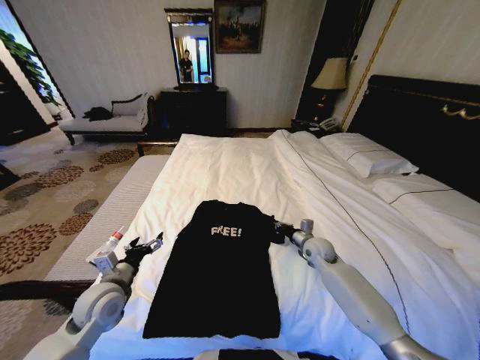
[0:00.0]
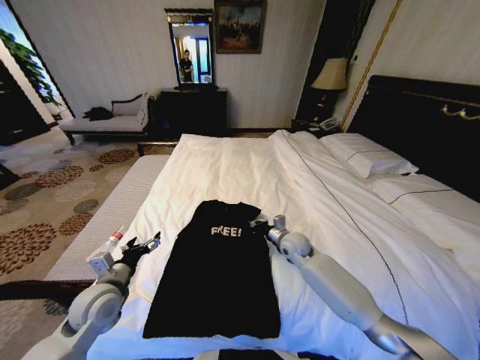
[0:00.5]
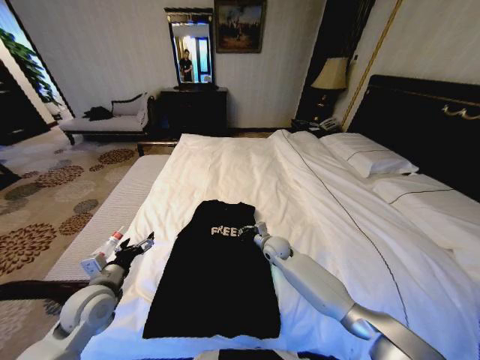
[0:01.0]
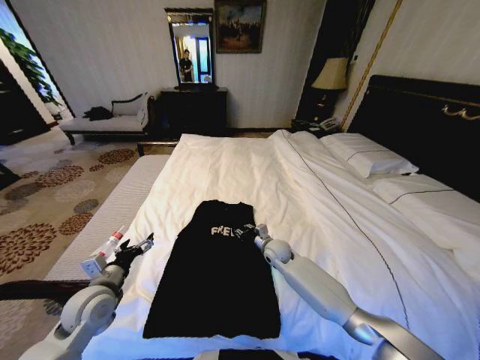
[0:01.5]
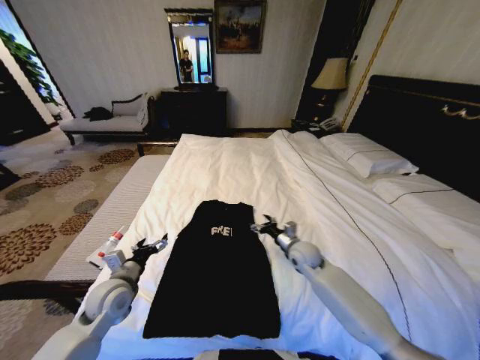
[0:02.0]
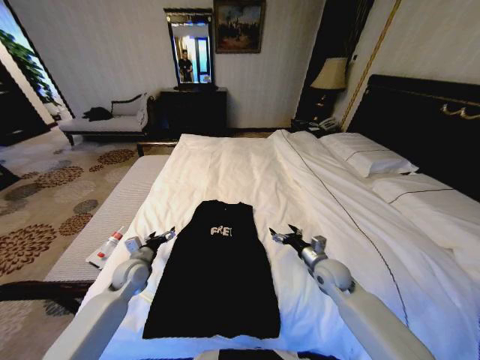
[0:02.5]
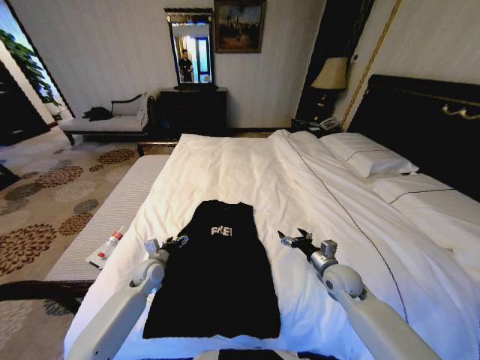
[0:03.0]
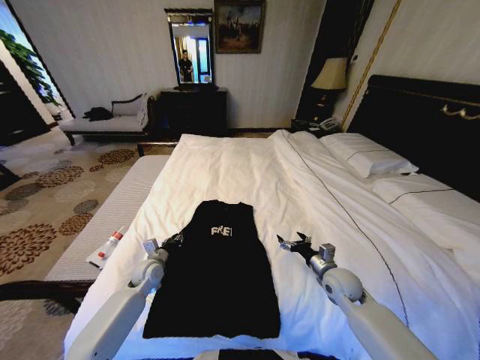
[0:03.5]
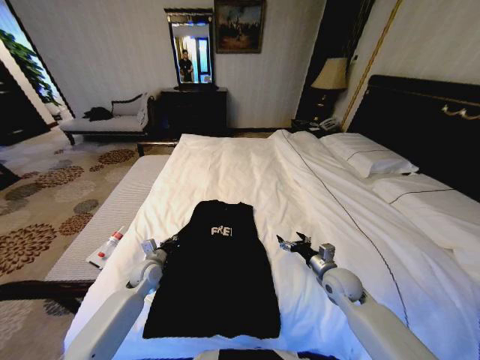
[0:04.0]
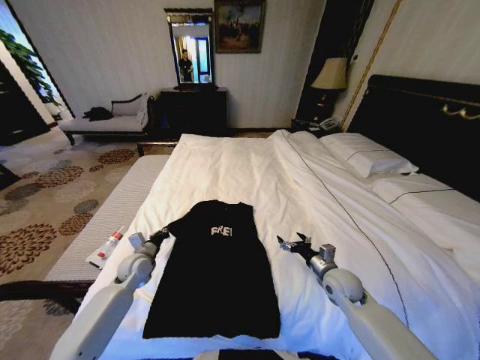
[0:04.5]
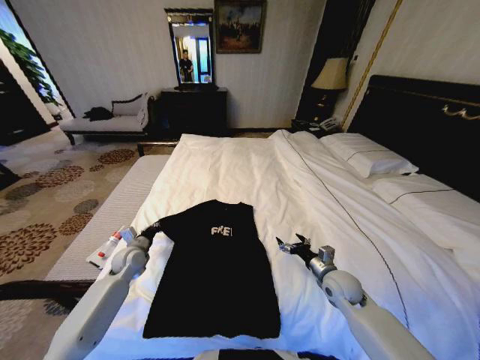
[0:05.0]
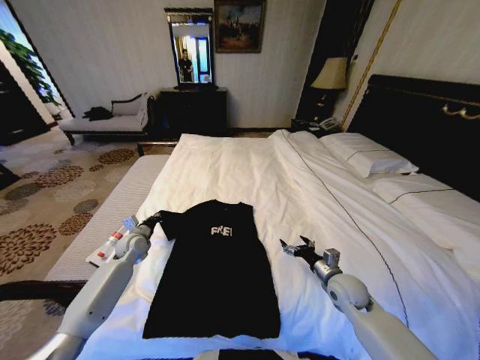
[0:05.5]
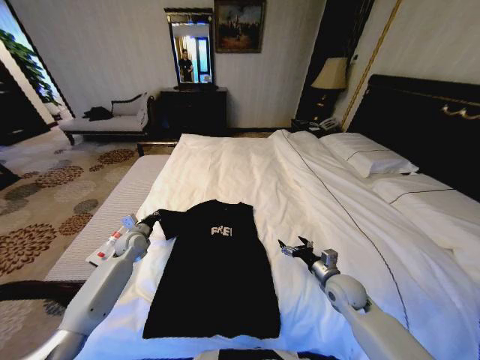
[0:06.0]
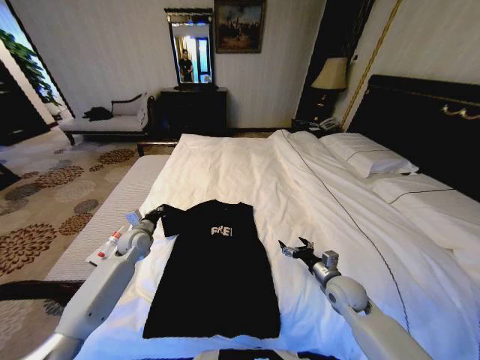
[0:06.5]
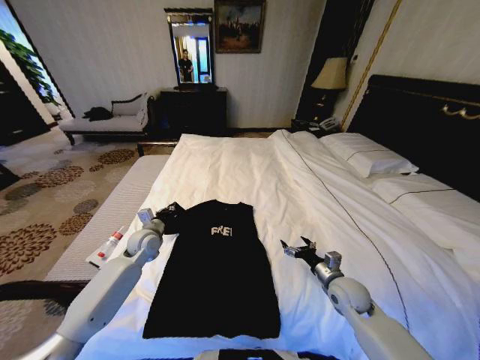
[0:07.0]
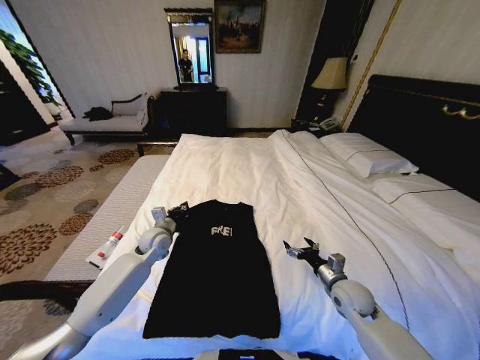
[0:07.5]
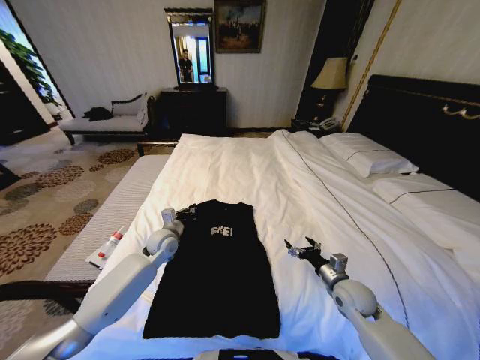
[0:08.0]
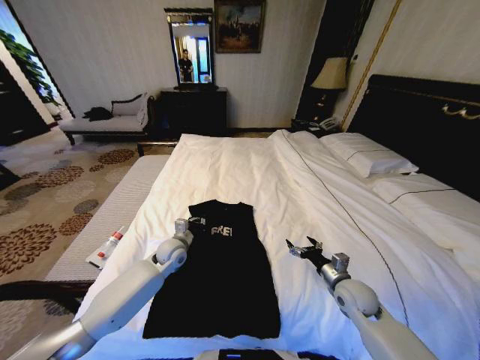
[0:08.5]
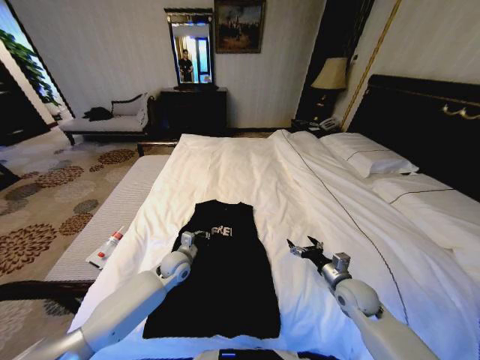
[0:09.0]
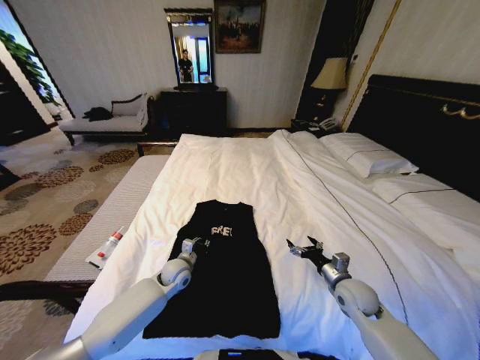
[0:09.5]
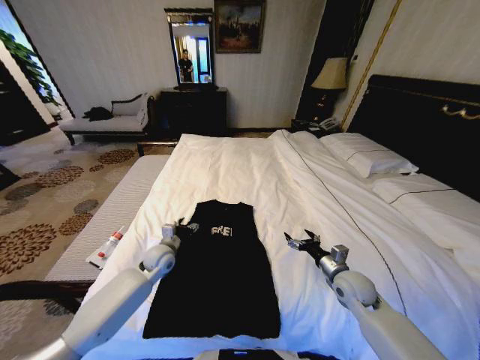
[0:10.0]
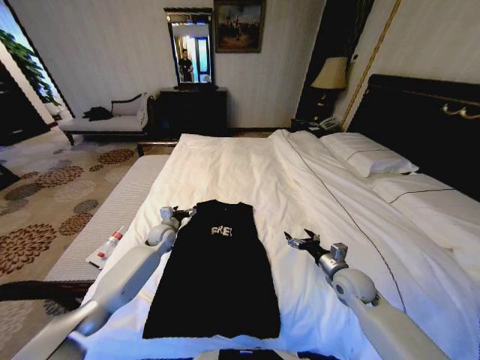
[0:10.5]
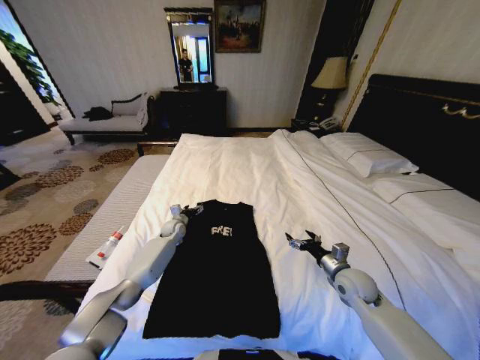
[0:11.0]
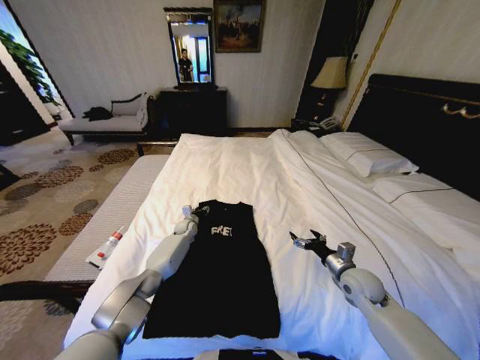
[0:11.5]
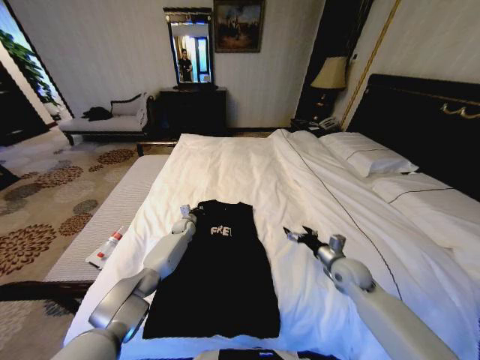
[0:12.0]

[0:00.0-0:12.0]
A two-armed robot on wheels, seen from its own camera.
Task of the whole recording: Fold the clothes on the bed.
0:00.0 to 0:02.0: The right gripper shifts some 5 cm to the left, and opens up.
0:02.0 to 0:04.0: The left gripper travels forward and downward by about 15 cm, and closes up. Meanwhile the right gripper goes approximately 10 cm backward and to the right.
0:04.0 to 0:06.0: The left gripper travels forward and to the left by about 10 cm.
0:06.0 to 0:08.0: The left gripper shifts about 15 cm to the right.
0:08.0 to 0:10.0: The left gripper opens its fingers.
0:10.0 to 0:12.0: The left gripper shifts about 20 cm forward and downward, and closes up.

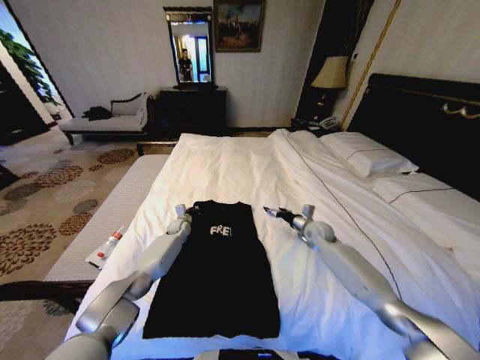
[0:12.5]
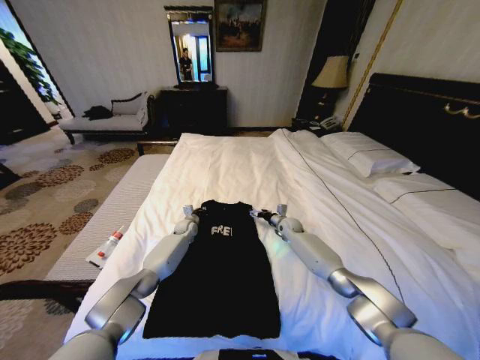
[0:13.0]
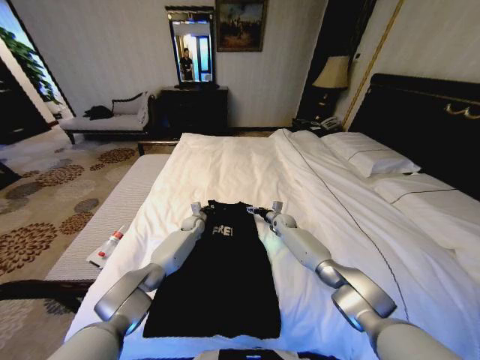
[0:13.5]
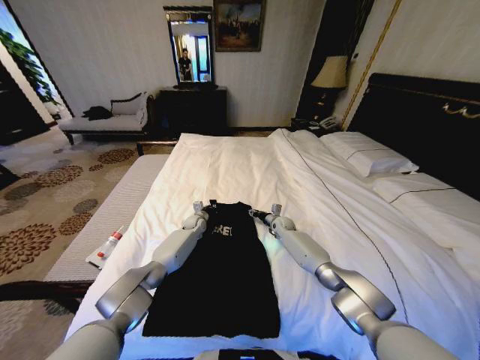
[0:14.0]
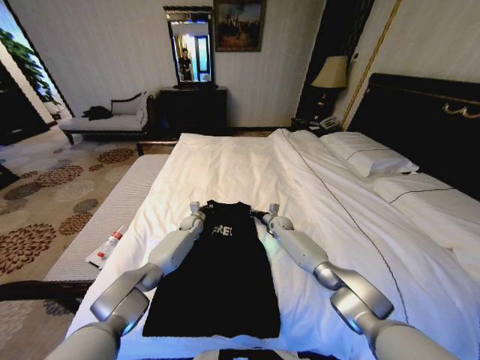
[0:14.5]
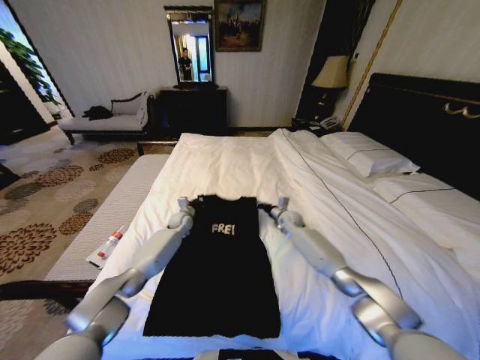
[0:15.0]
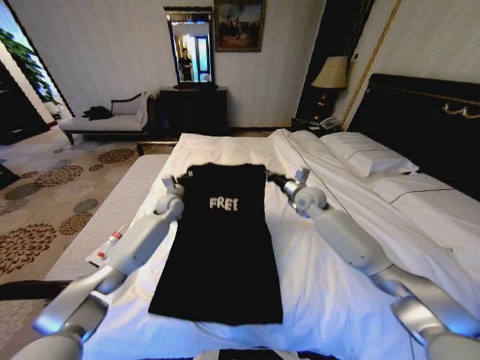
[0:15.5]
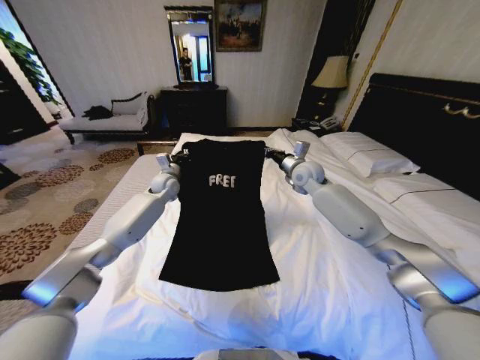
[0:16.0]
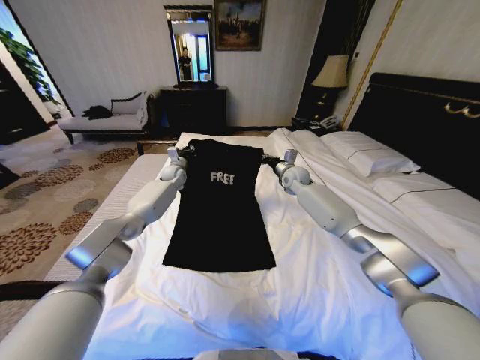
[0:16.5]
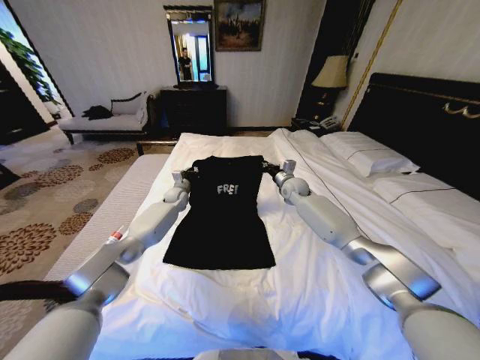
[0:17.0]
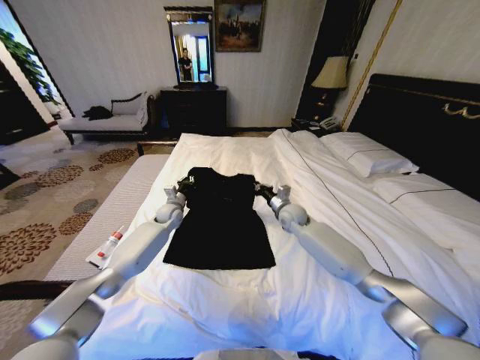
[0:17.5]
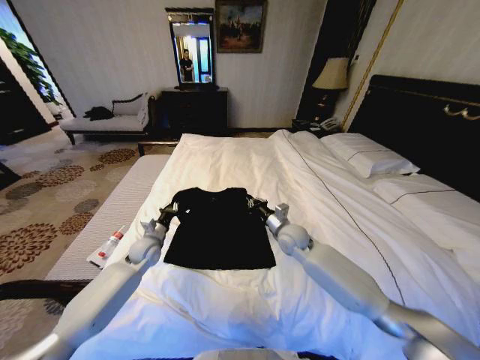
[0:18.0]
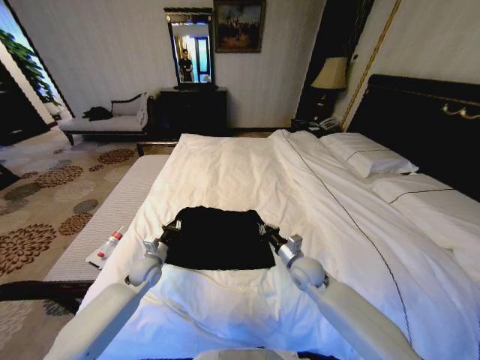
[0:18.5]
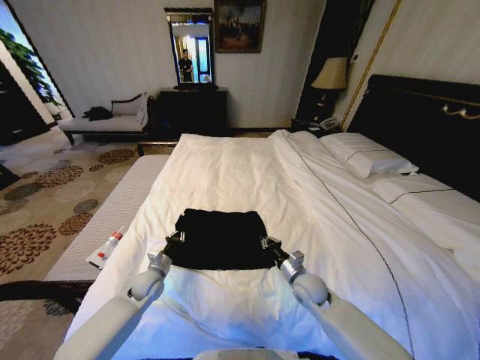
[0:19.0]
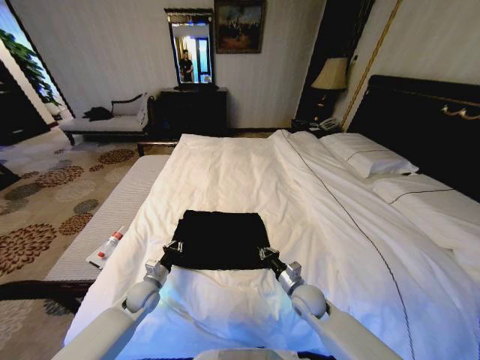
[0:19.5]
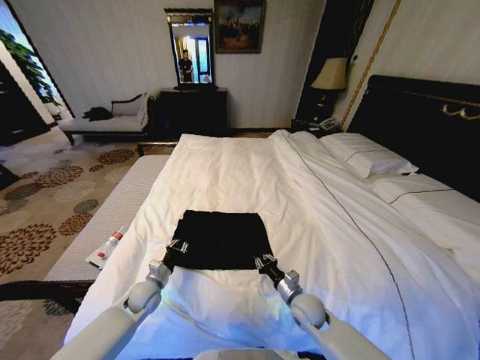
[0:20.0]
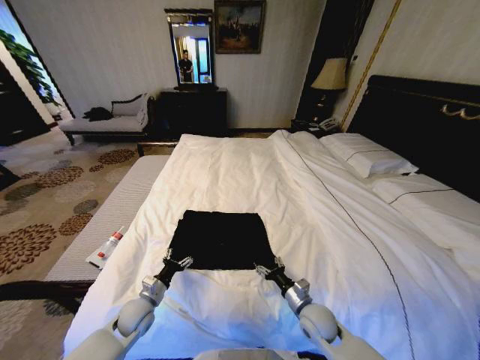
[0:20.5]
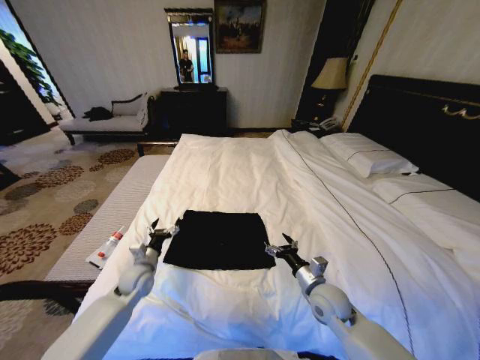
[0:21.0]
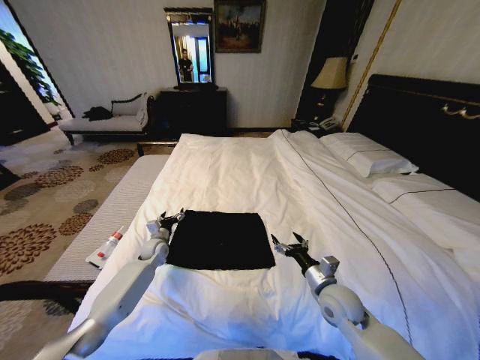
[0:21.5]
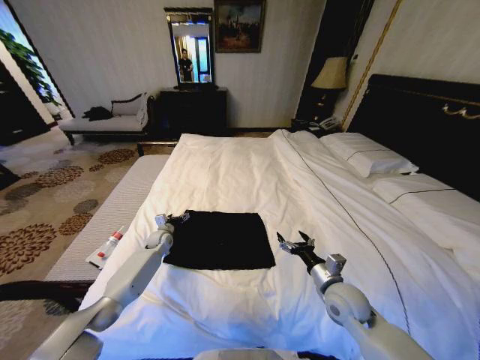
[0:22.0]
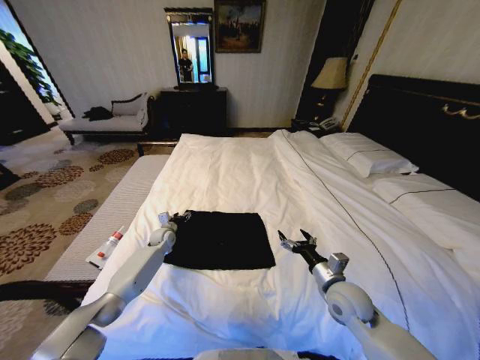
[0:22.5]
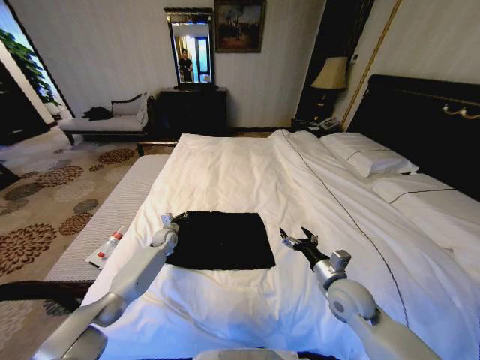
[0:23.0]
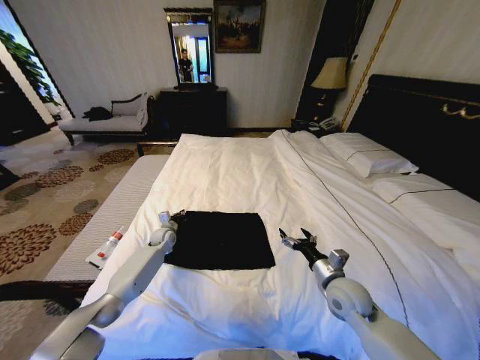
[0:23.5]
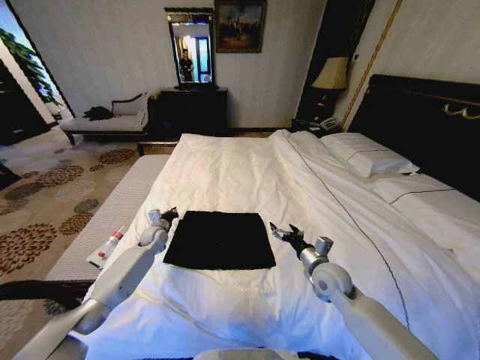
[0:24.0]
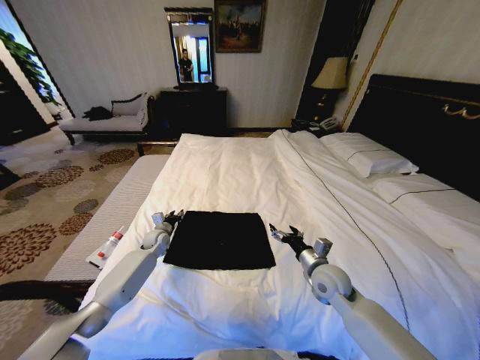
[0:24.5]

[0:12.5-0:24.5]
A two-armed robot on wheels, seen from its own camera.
Task of the whole recording: Fold the clothes on the bed.
0:12.5 to 0:14.5: The right gripper heads forward, to the left and downward, covering approximately 15 cm, and closes its fingers; the left gripper heads to the right, covering roughly 5 cm.
0:14.5 to 0:16.5: The right gripper moves upward, roughly 20 cm. Meanwhile the left gripper goes approximately 25 cm upward and forward.
0:16.5 to 0:18.5: The grippers both shift backward and downward by about 35 cm.
0:18.5 to 0:20.5: The left gripper travels backward by roughly 10 cm, and opens up. The right gripper is displaced backward and downward by about 15 cm, and opens.
0:20.5 to 0:22.5: The right gripper goes roughly 10 cm upward. The left gripper heads forward, covering roughly 25 cm.
0:22.5 to 0:24.5: The right gripper moves forward, some 5 cm. The left gripper closes its fingers.

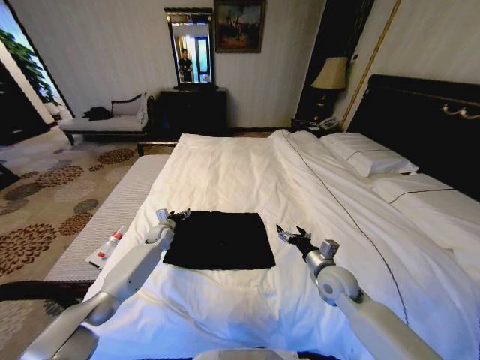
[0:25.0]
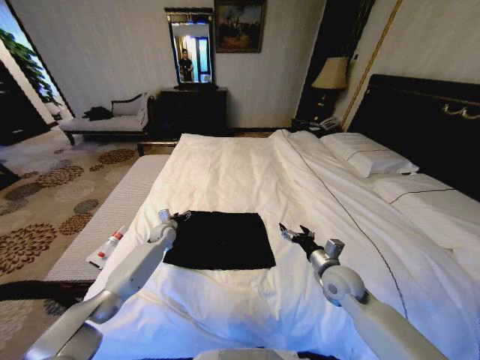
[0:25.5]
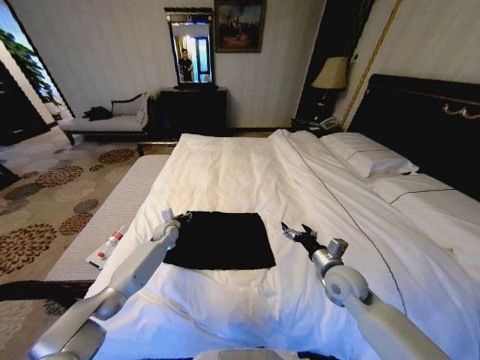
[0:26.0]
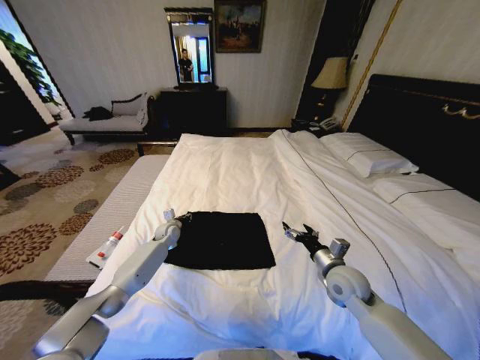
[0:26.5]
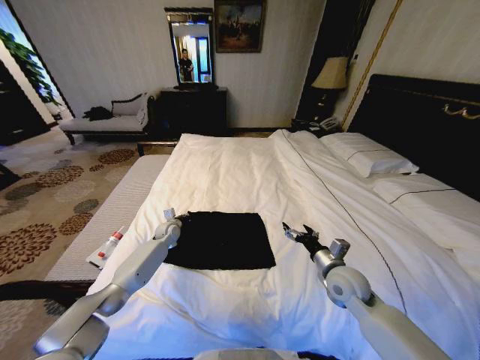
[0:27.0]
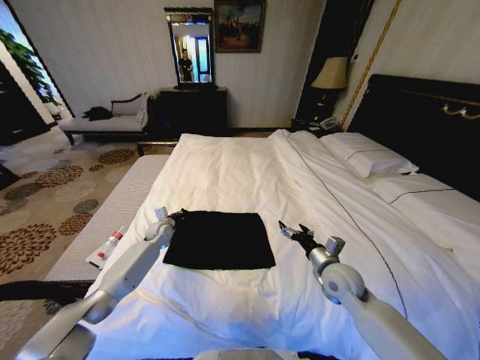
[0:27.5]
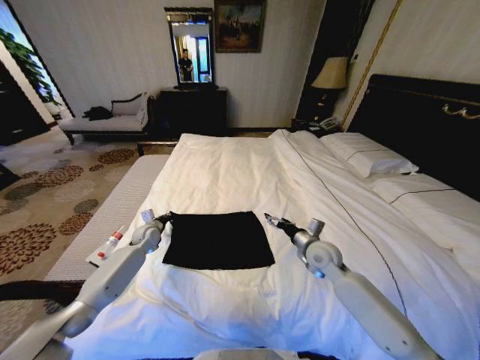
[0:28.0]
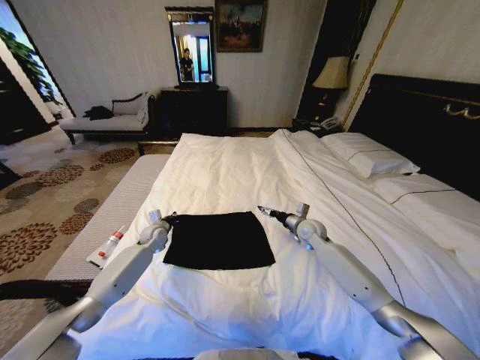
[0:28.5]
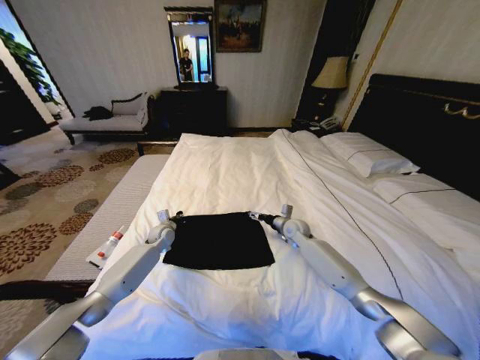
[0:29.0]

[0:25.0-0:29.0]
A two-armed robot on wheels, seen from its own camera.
Task of the whole recording: Fold the clothes on the bed.
0:25.0 to 0:27.0: The left gripper closes its fingers.
0:27.0 to 0:29.0: The right gripper shifts some 20 cm forward.
